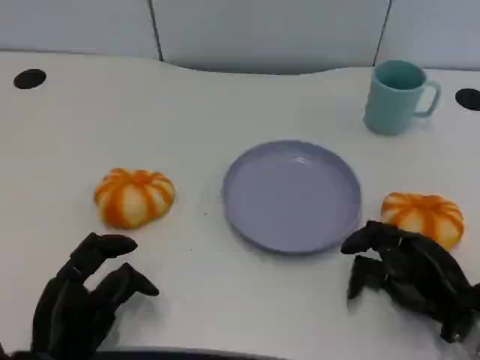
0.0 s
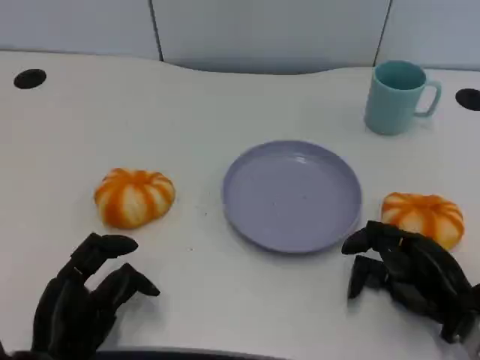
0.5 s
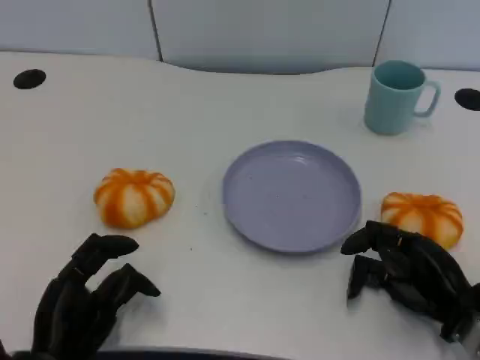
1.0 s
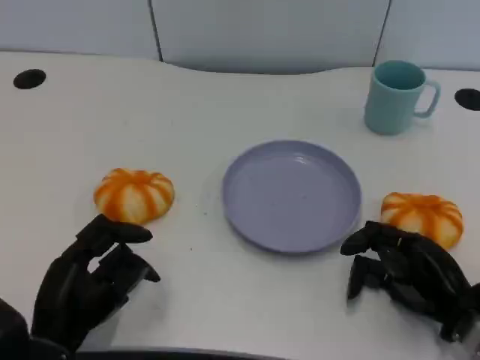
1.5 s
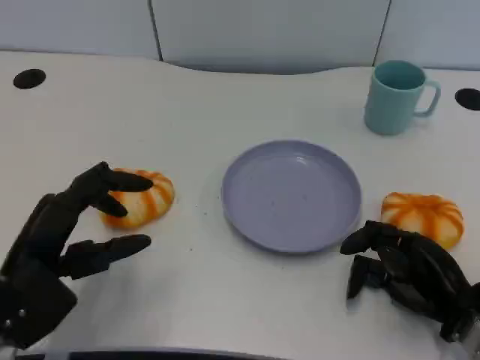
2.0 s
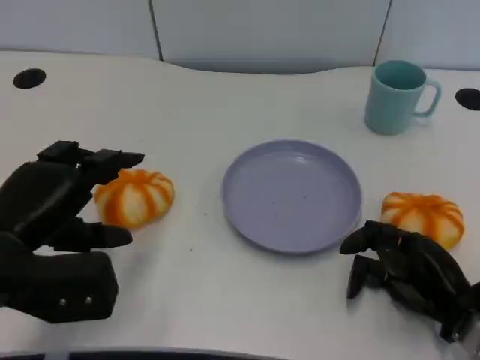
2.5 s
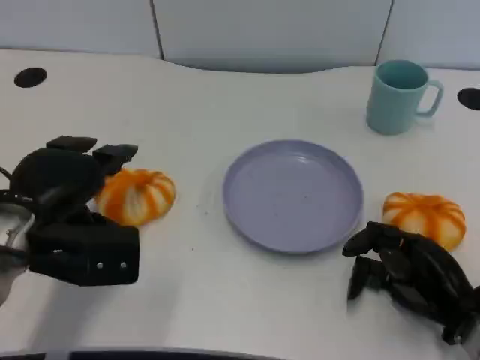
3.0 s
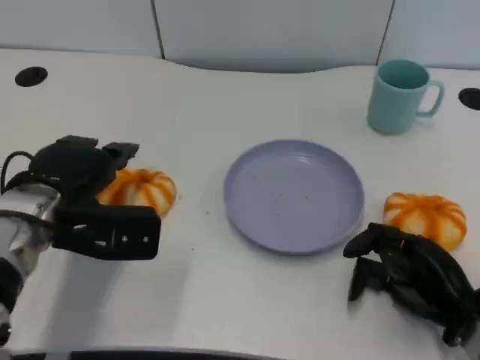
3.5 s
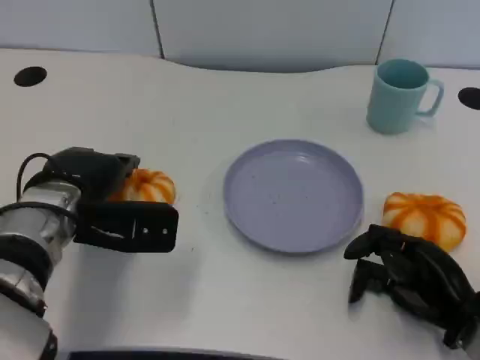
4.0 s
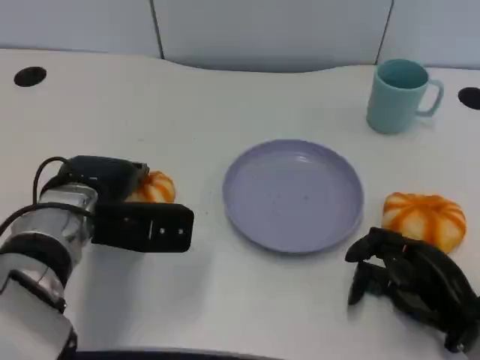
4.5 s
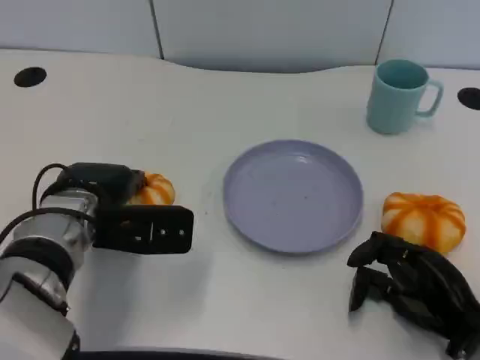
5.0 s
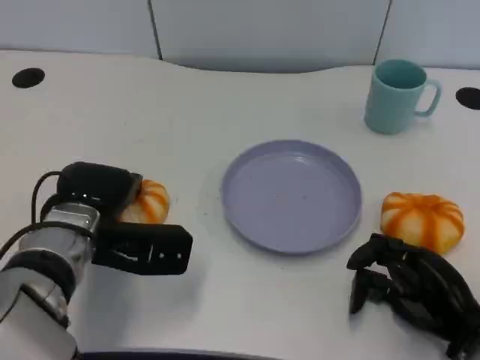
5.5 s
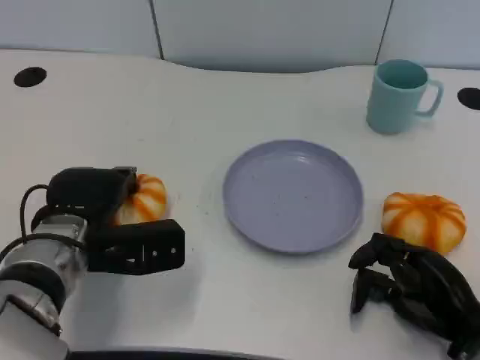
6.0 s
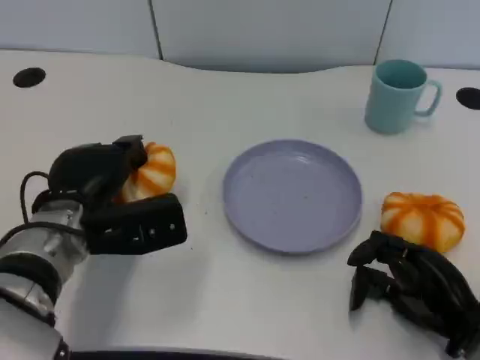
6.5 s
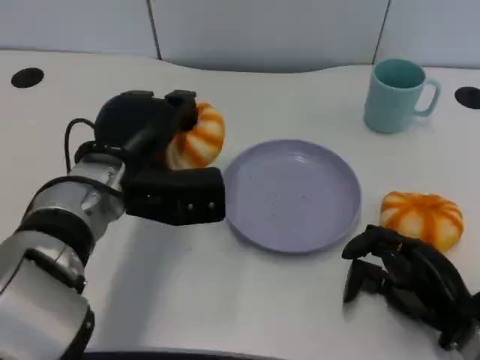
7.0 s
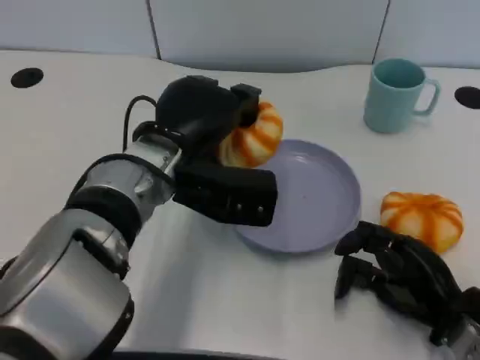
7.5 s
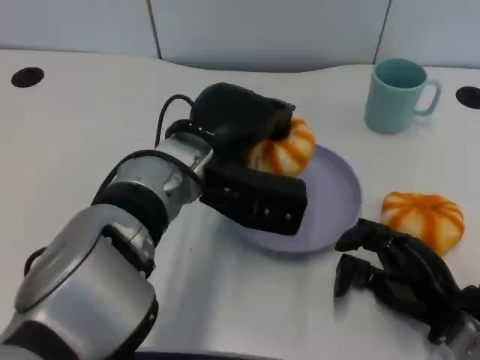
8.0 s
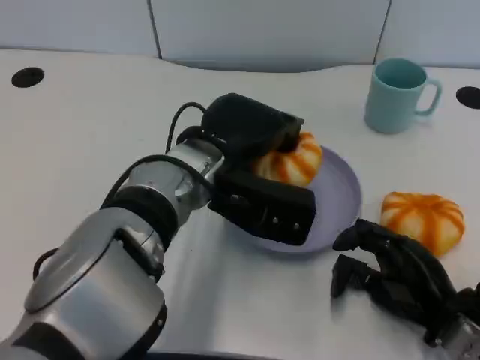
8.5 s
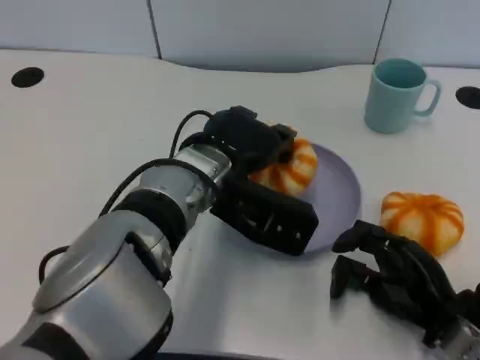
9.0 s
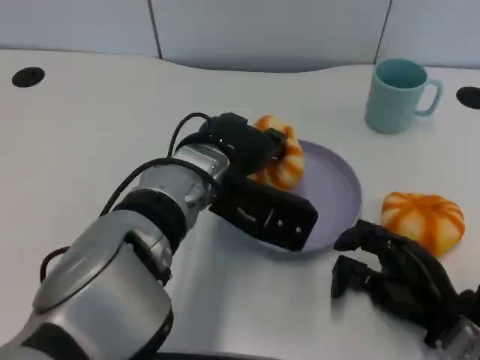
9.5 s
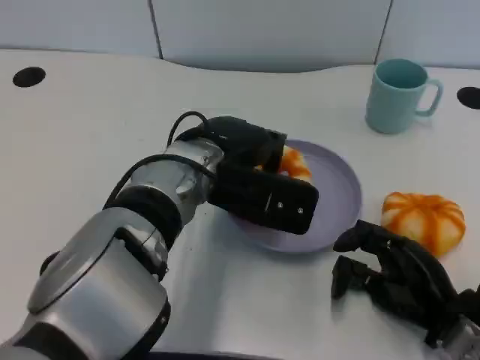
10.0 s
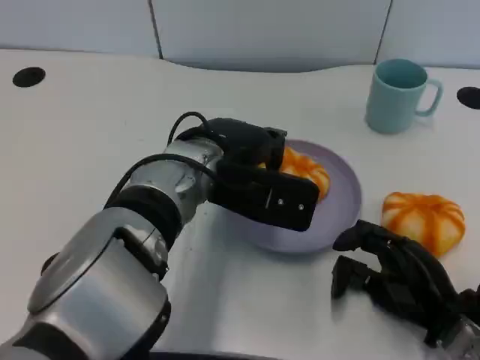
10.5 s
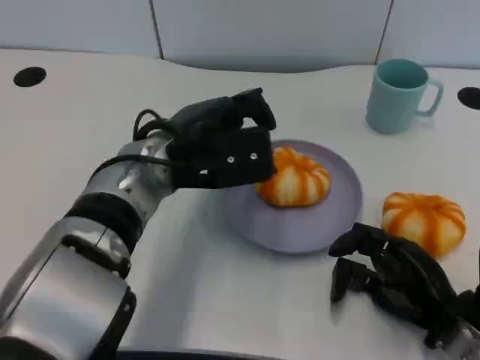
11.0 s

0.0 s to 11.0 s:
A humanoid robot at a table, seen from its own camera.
Task of the whole recording: Grasp the bread from the table and place it into the plate.
0.0 to 2.0 s: The left hand shifts approximately 10 cm upward.
2.0 to 3.5 s: The left hand shifts about 10 cm forward.
3.5 to 5.5 s: There are only small adjustments of the hands.
5.5 to 7.5 s: The left hand heads to the right and upward, covering approximately 10 cm.

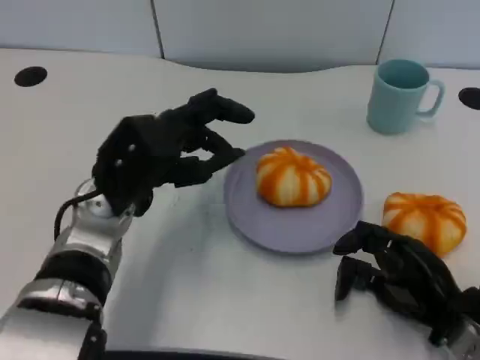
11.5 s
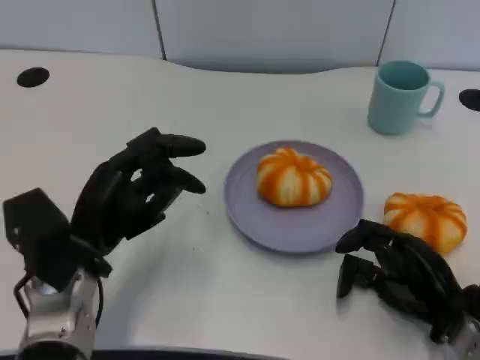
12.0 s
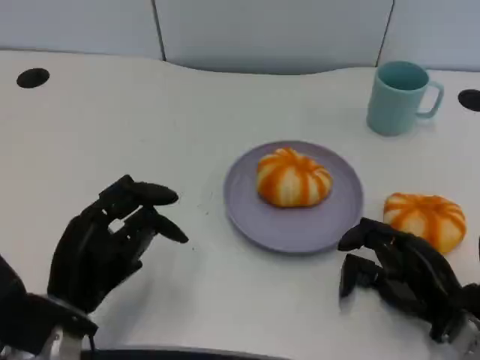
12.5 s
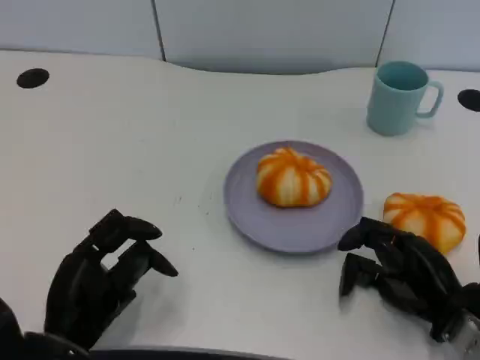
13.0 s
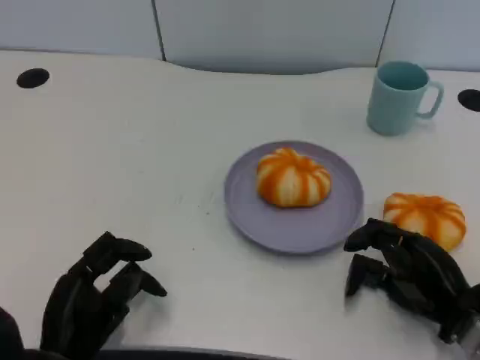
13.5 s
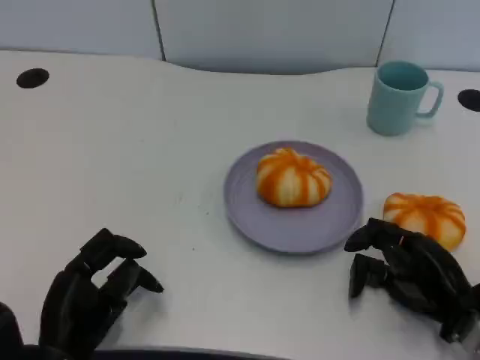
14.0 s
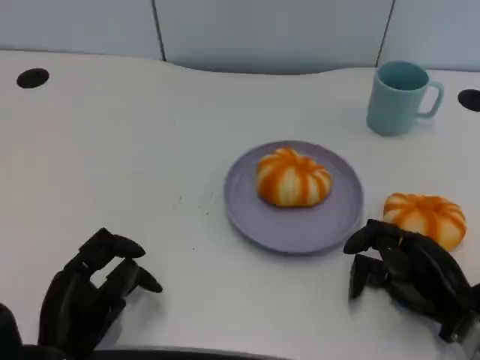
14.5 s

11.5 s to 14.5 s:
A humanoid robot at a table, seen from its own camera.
Task of the whole recording: Grasp the bread from the table and place it into the plate.
11.5 to 13.0 s: The left hand moves backward, downward and to the left, about 15 cm.
13.0 to 14.5 s: The hands make only small movements.

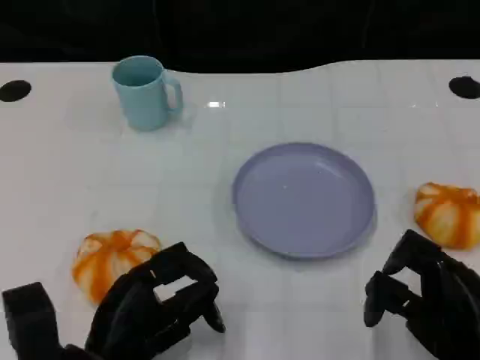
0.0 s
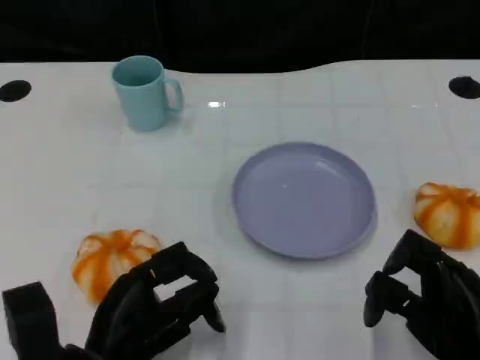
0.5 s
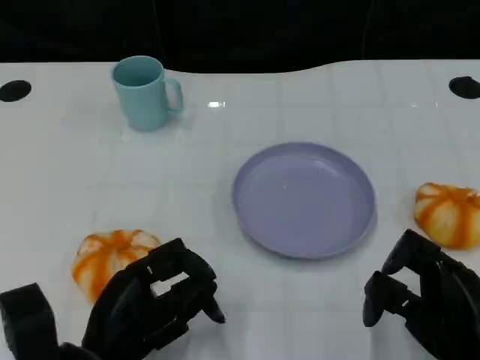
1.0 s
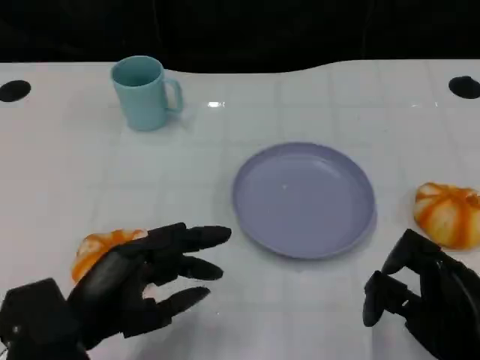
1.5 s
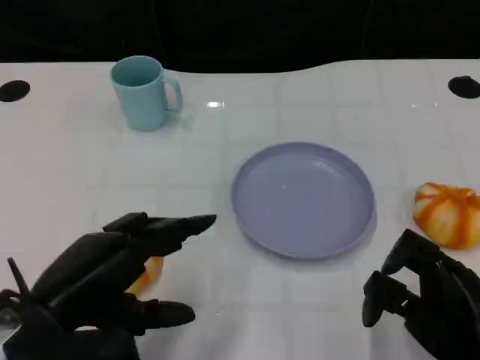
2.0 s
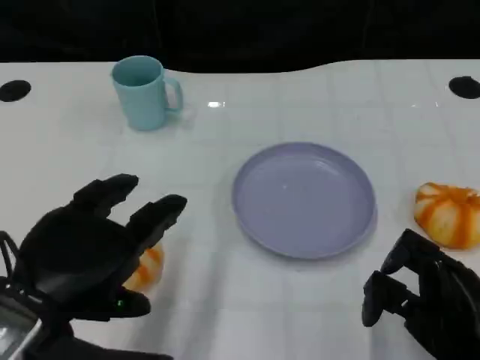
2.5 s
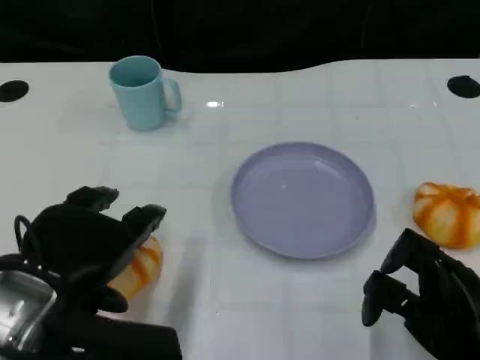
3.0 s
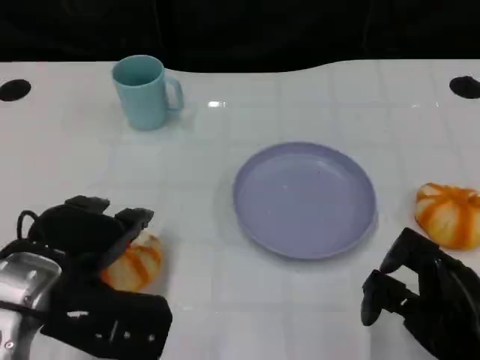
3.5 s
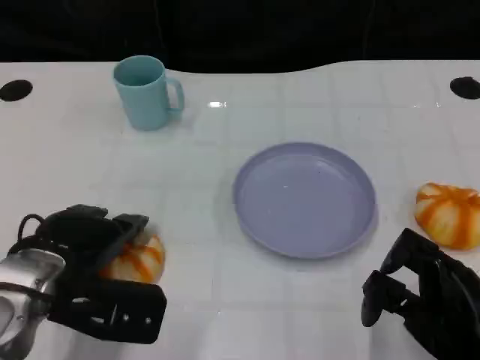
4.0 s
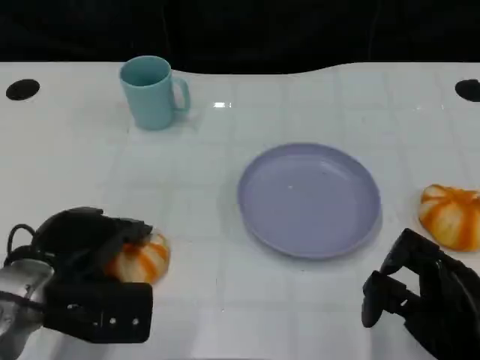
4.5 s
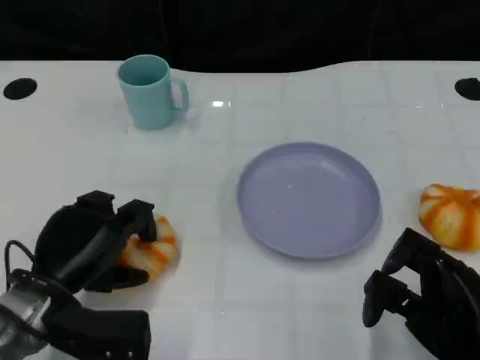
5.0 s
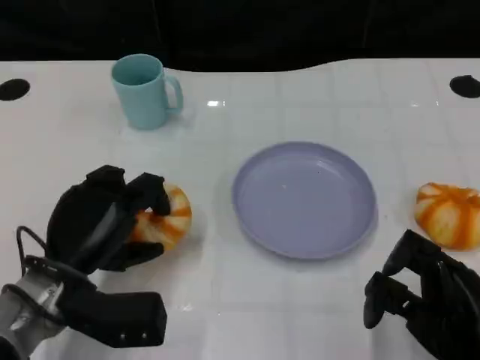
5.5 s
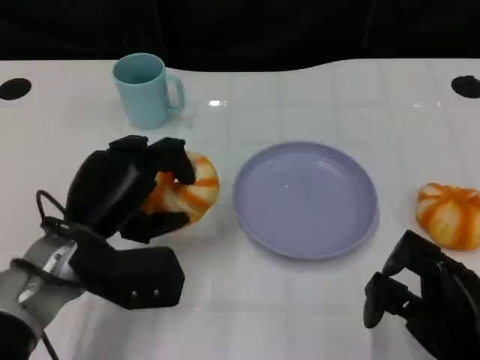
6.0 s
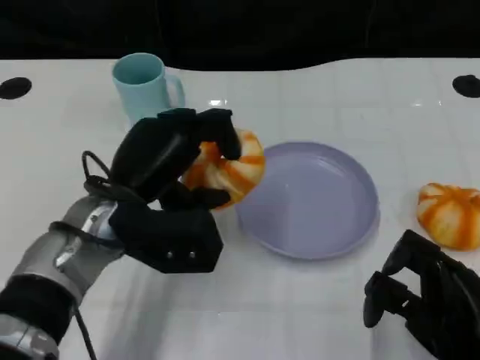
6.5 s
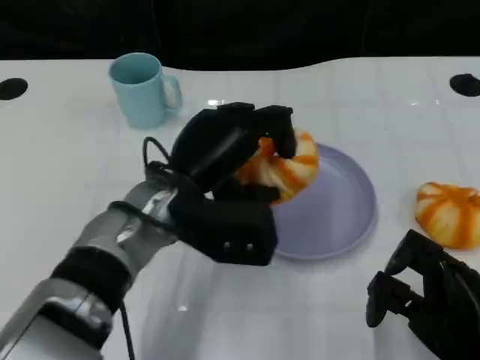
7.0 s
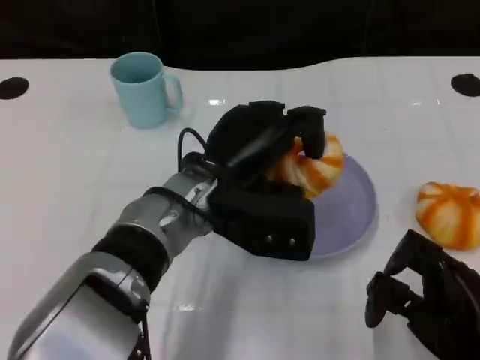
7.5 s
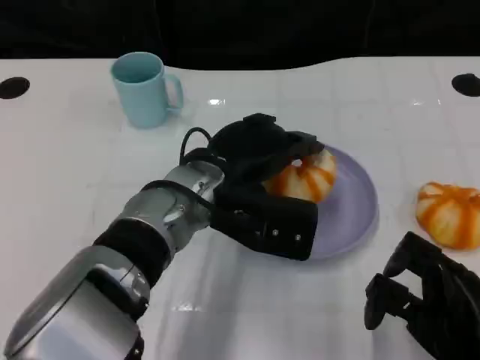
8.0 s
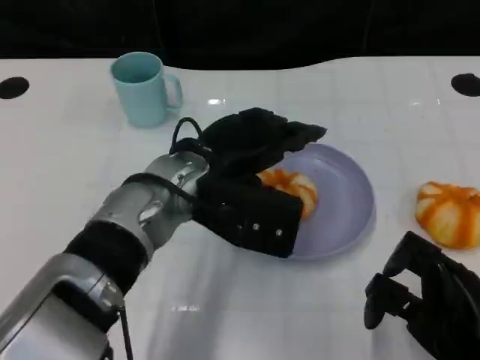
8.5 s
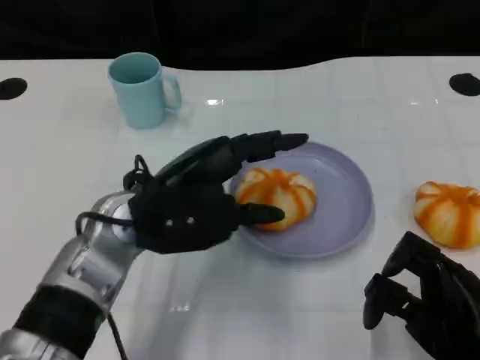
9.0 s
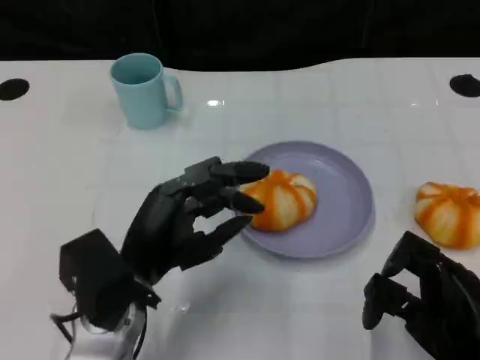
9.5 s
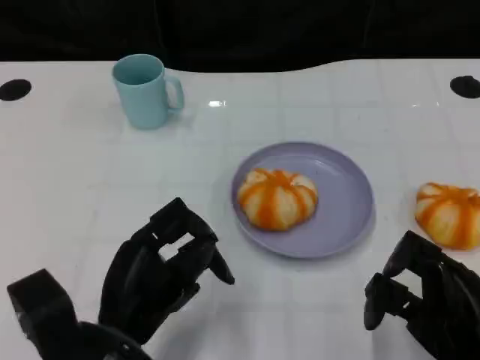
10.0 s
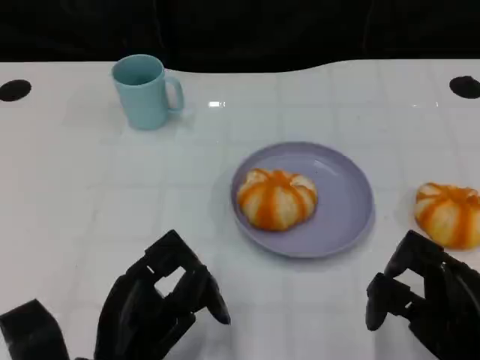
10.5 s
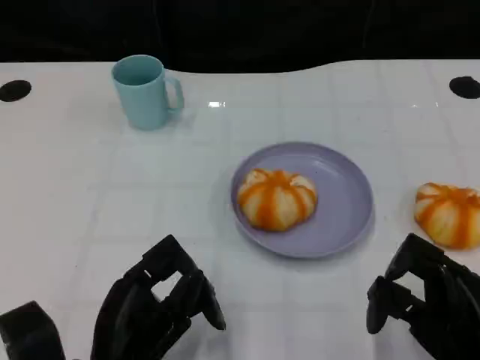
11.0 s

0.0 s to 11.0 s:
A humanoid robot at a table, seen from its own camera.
Task of the whole recording: Grasp the bread from the table and place it into the plate.
0.0 to 2.0 s: The left hand heads upward, covering approximately 10 cm.
2.0 to 3.5 s: The left hand goes about 5 cm forward.
3.5 to 5.5 s: The left hand moves downward, some 5 cm.
5.5 to 7.5 s: The left hand goes roughly 15 cm to the right and upward.
7.5 to 9.0 s: The left hand moves to the left, some 10 cm.
9.0 to 11.0 s: The left hand shifts approximately 15 cm backward and downward.
